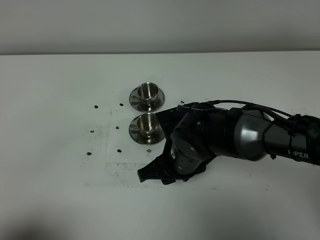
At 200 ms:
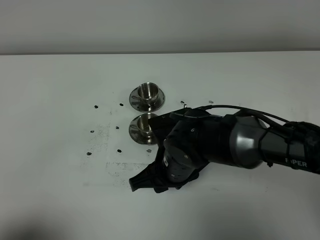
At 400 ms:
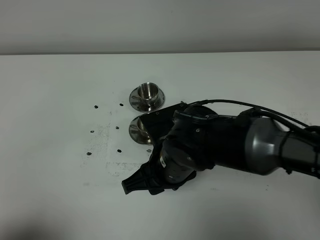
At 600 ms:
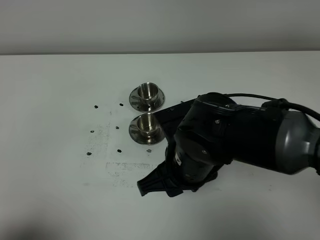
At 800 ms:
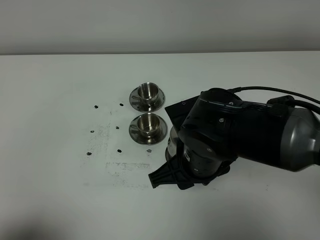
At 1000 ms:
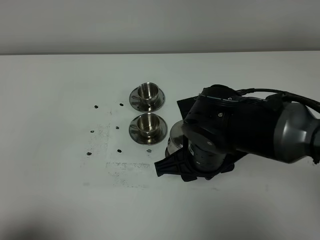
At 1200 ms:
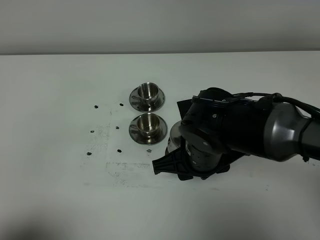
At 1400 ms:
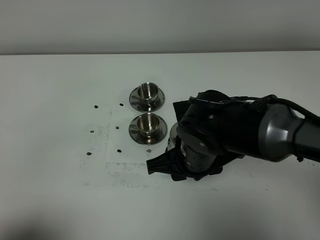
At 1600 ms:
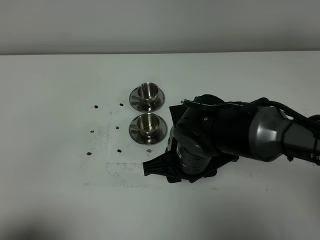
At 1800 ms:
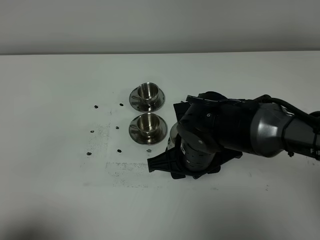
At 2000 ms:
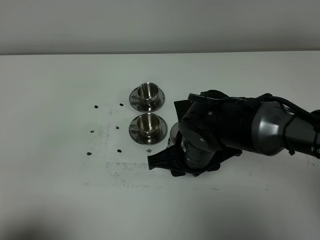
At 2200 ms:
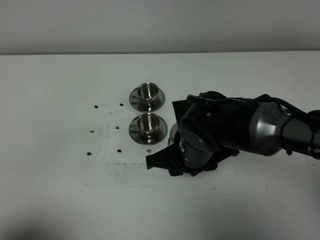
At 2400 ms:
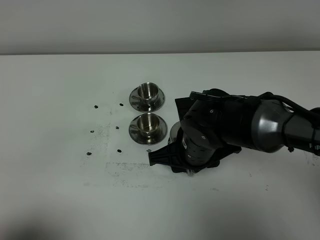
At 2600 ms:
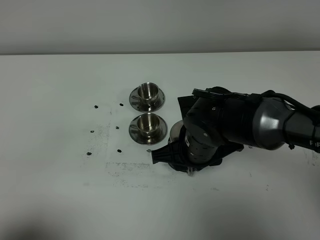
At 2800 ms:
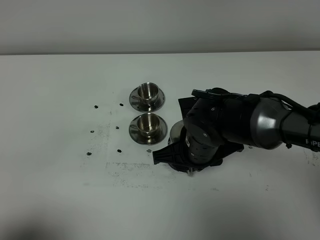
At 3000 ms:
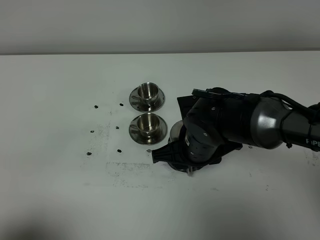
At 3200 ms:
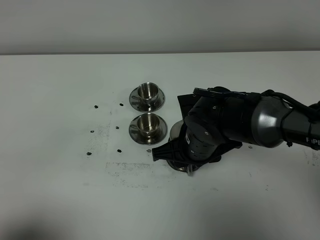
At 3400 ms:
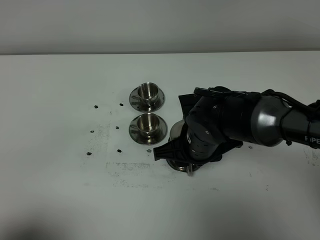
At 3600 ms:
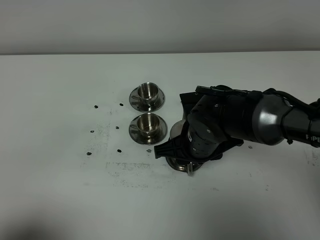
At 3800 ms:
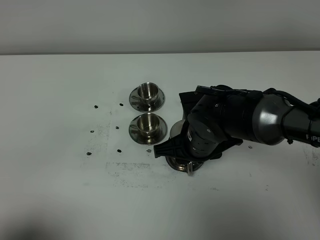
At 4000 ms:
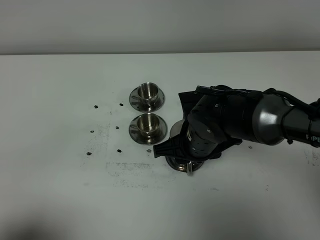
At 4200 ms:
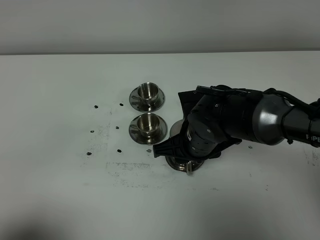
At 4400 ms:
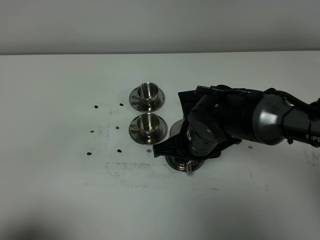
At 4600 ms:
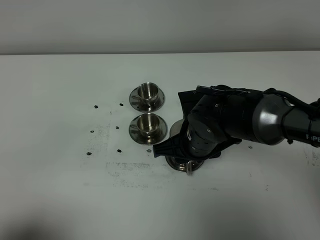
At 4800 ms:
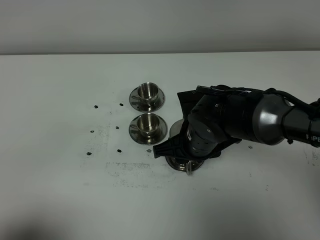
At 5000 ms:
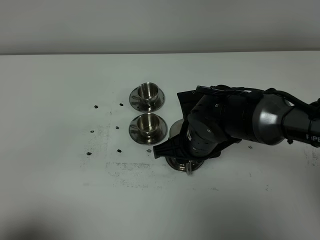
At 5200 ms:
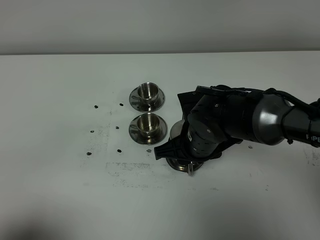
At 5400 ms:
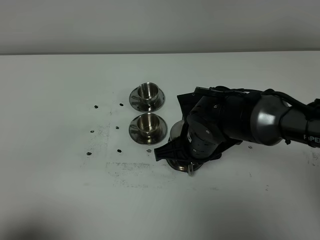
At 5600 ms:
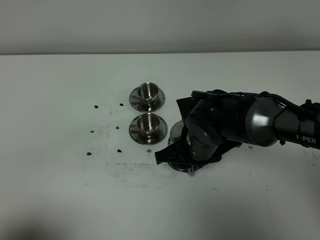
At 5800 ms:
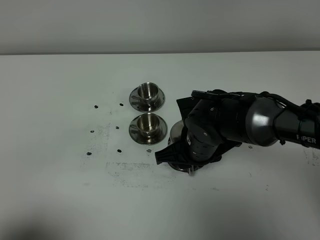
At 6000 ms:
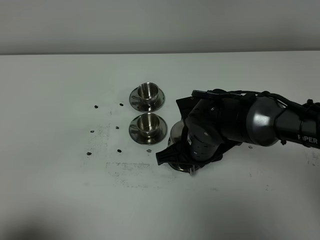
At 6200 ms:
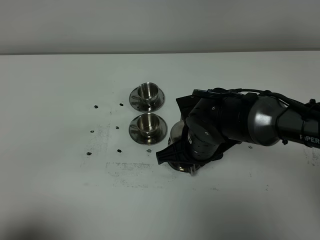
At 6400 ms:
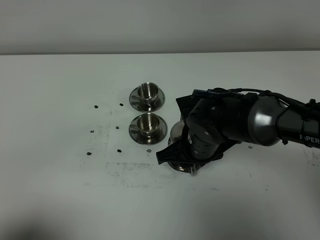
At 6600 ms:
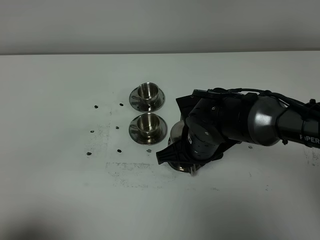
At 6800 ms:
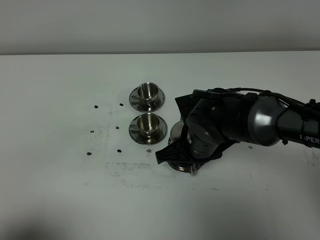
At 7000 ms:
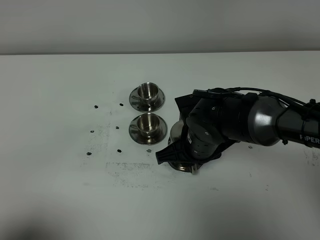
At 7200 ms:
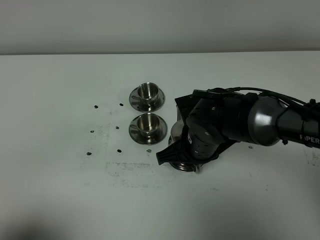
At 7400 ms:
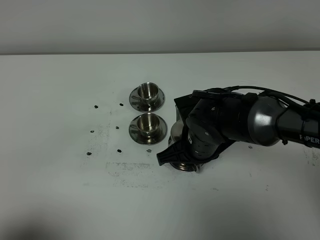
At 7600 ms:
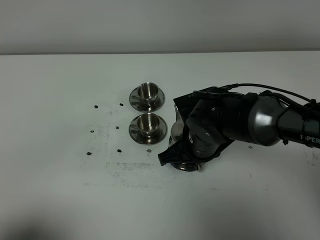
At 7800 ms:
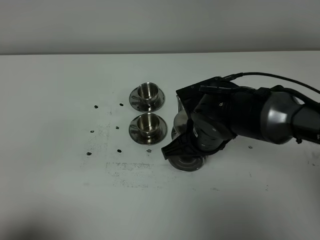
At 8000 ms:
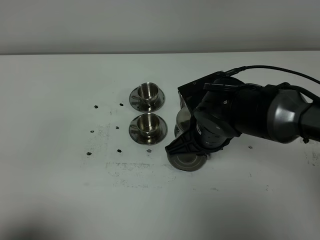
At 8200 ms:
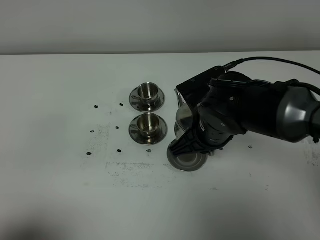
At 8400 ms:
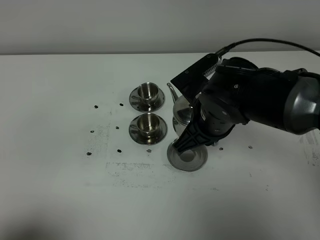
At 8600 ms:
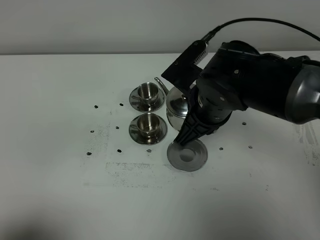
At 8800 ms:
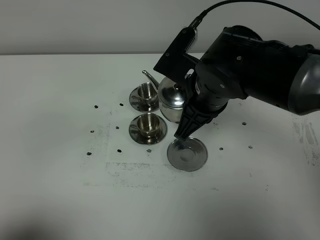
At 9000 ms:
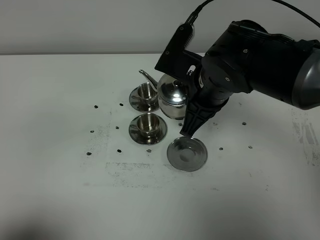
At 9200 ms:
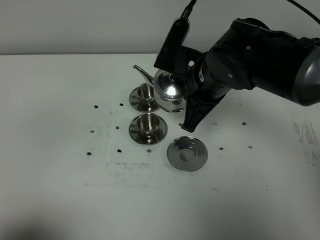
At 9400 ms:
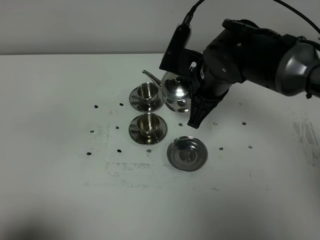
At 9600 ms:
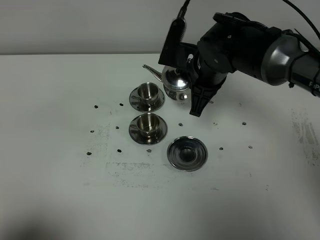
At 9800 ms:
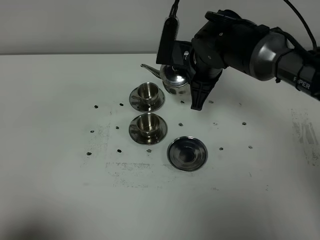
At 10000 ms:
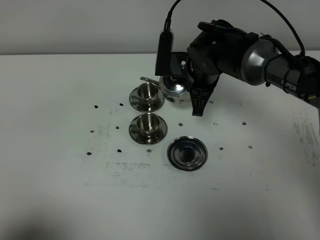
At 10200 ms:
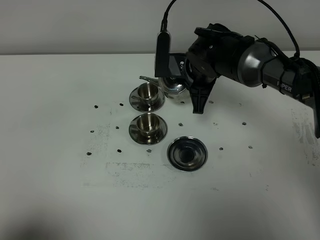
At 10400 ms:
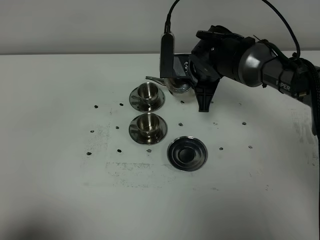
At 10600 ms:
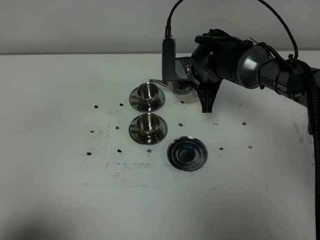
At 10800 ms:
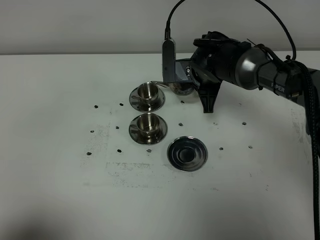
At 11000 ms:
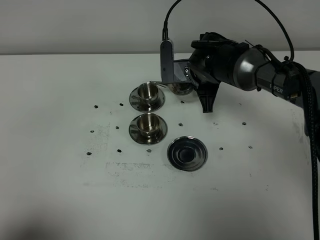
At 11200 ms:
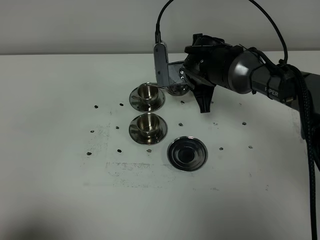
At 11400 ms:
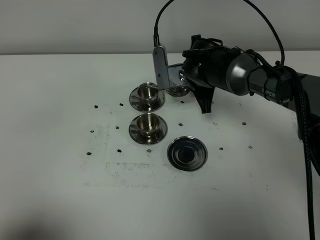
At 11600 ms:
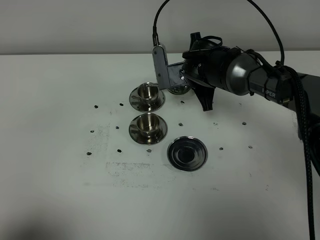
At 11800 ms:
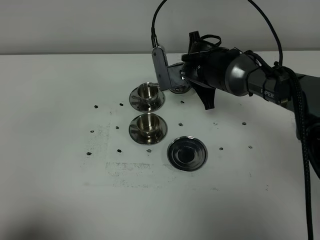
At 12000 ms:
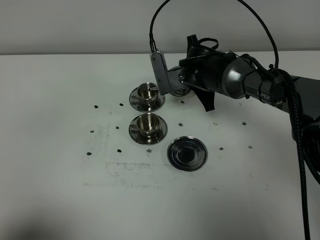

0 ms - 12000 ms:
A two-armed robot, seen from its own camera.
Task of the whole recording: grasp the stainless steel teapot and pour the tea into the two stainless steel teacups one by one, put the stainless steel teapot back in its original place.
Step, 0 ms - 8000 ms: Pick up the teapot with the right gripper.
1600 ms - 3000 ms: The grippers make only small movements.
3000 ms - 4400 ms: The two grippers keep their place.
4400 ms - 6000 ms: The grippers make only small movements.
6000 ms - 7600 ms: The right gripper closes up.
7600 ms - 9000 ms: The right gripper travels upward by roughly 10 cm.
9000 ms - 10400 ms: The right gripper shifts some 15 cm forward and downward.
10400 ms - 12000 ms: The grippers make only small movements.

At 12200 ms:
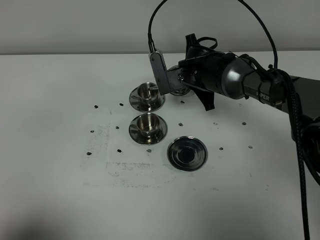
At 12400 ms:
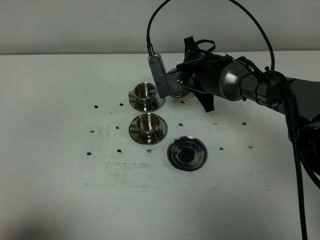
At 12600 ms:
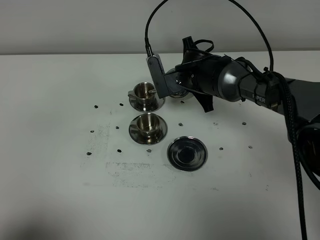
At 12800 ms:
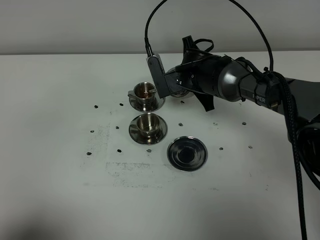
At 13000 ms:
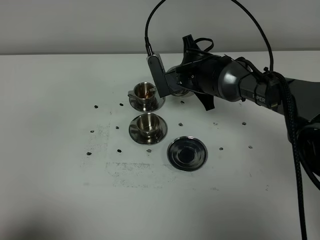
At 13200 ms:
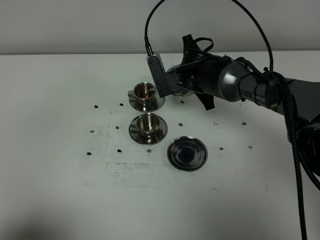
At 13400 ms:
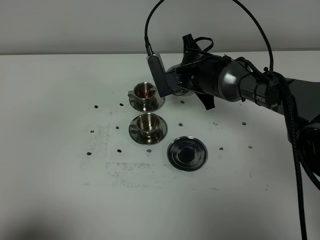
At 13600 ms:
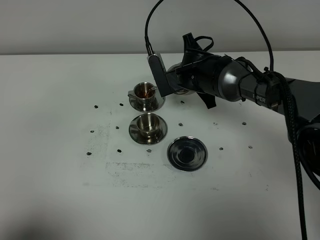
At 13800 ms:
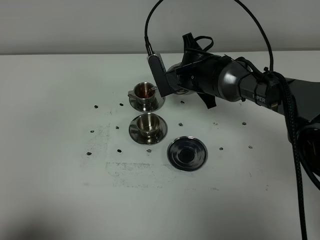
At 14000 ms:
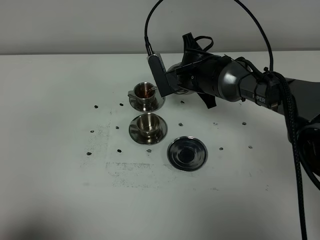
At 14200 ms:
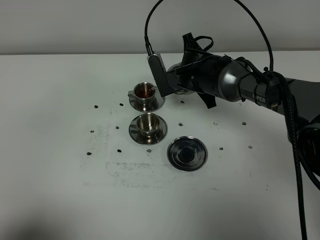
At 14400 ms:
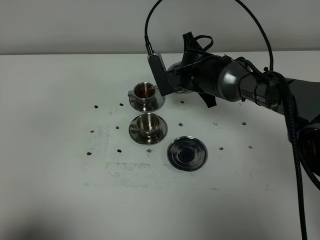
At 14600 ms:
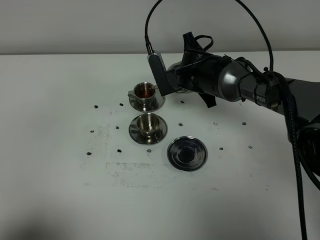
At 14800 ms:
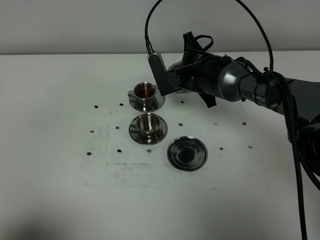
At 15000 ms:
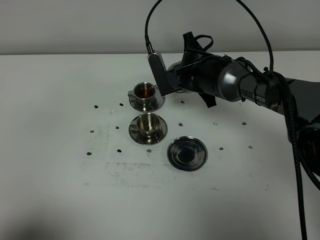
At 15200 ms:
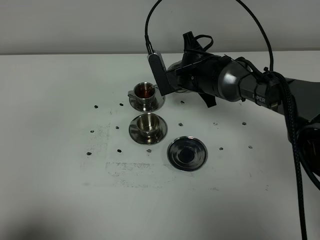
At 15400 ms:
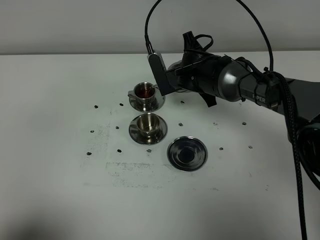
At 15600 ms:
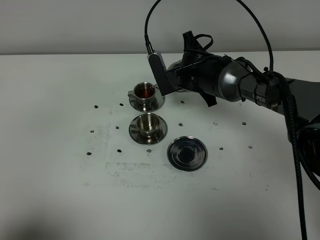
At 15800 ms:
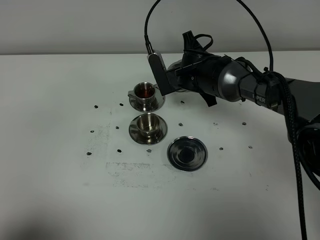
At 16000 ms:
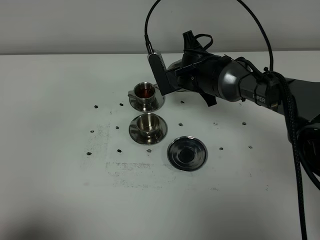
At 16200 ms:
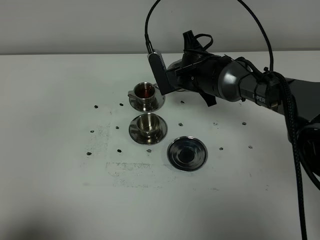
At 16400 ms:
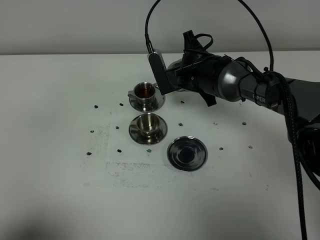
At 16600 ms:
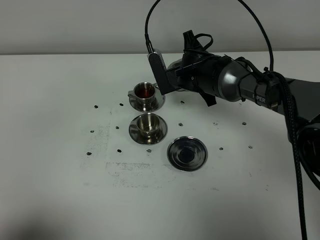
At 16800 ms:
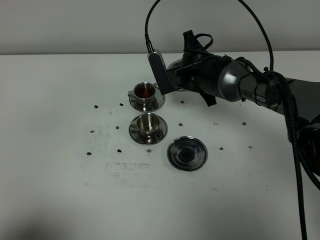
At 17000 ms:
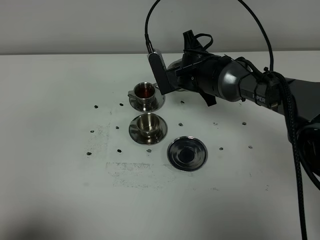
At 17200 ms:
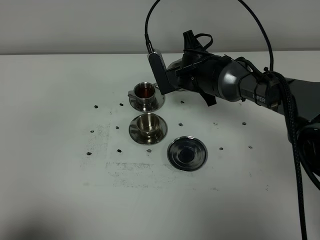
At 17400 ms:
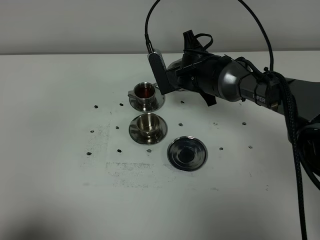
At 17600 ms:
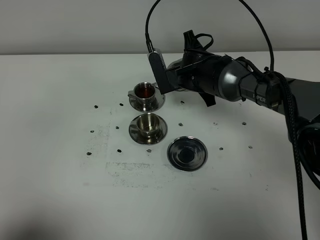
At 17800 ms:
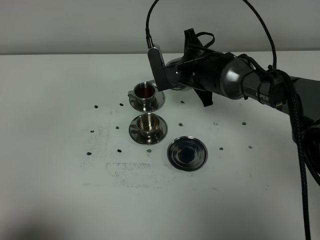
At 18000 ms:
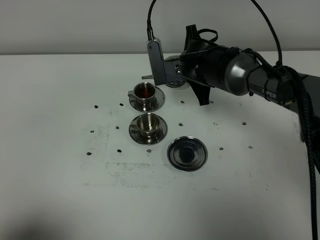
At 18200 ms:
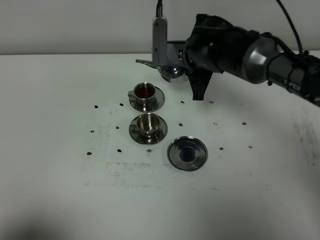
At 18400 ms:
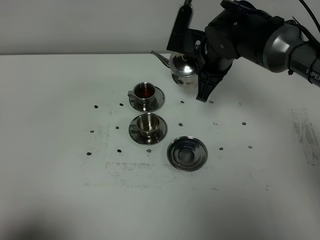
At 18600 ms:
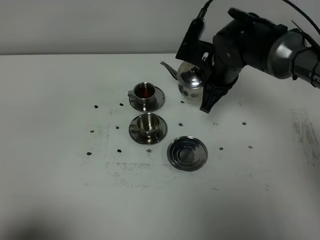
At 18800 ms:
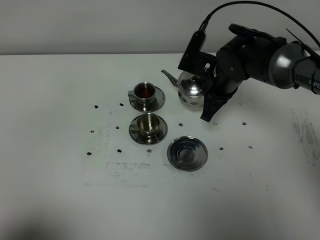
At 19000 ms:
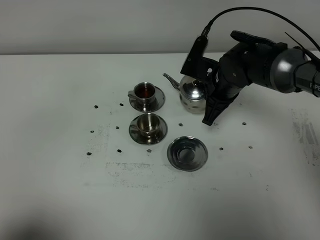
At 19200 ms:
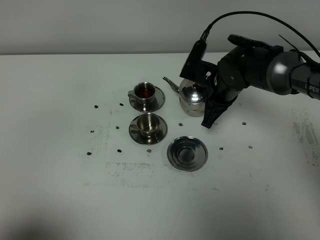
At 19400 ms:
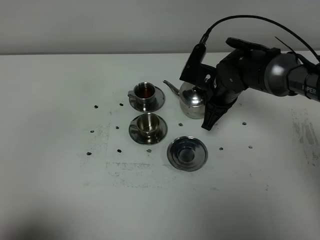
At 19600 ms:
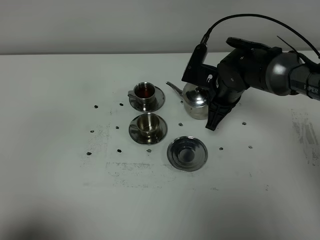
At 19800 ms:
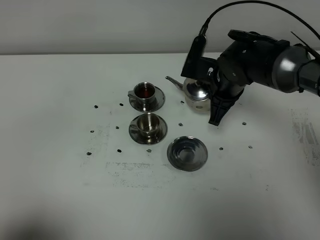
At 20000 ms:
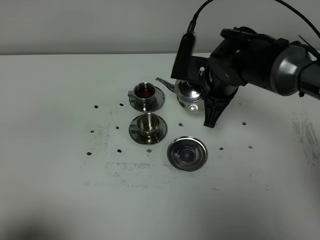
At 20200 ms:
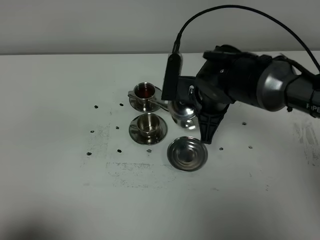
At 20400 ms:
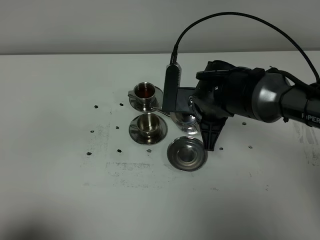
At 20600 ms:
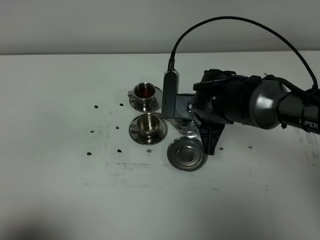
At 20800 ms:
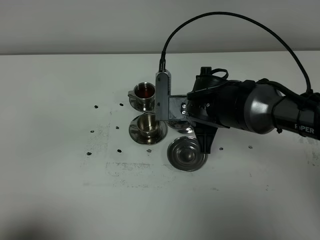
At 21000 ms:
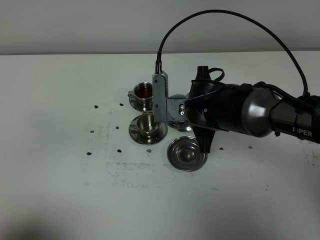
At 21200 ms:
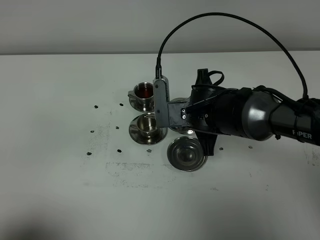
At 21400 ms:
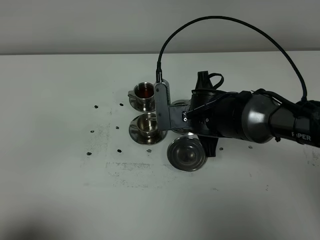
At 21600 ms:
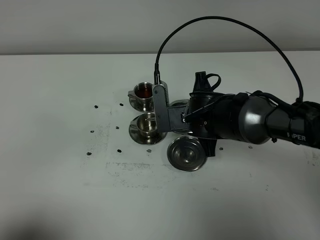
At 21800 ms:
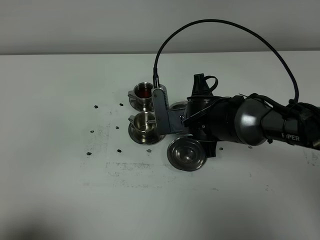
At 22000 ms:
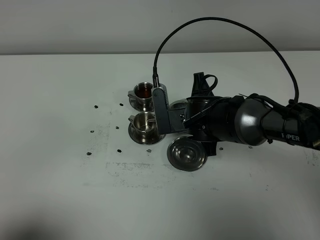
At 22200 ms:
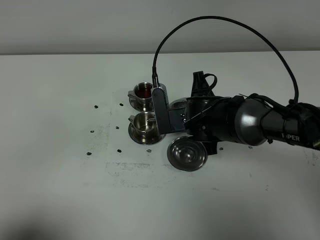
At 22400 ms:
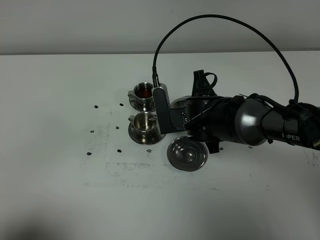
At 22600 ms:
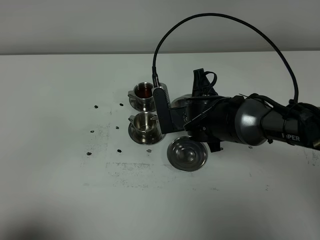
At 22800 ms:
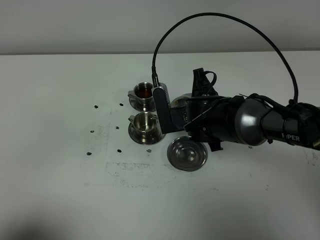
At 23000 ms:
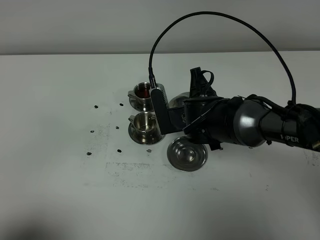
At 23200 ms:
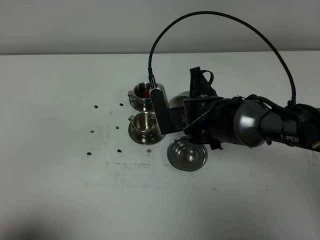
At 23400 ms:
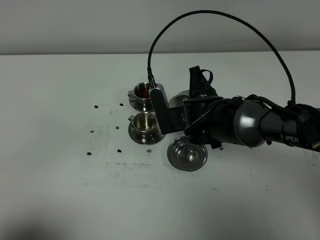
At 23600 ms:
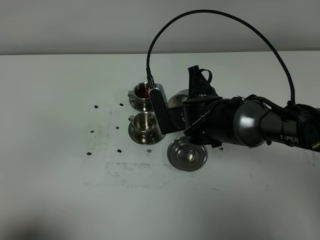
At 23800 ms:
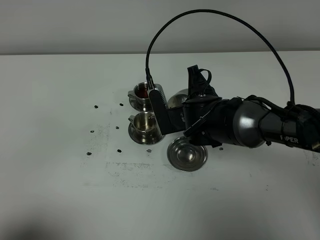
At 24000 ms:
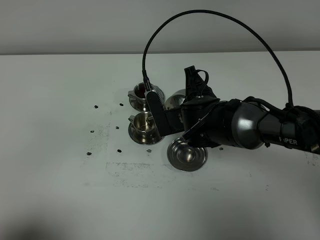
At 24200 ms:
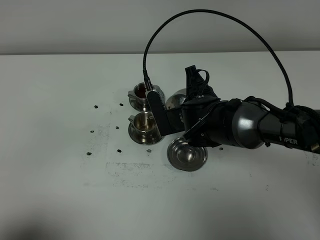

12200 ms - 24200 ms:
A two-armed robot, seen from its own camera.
Task of the whole recording: grasp the stainless steel teapot and pour the tea into the two stainless steel teacups one by one, put the stainless steel teapot back in its original place.
12200 ms - 13800 ms: The grippers make only small movements.
13800 ms - 16600 ms: Both grippers stay about where they are.
16600 ms - 18200 ms: The right gripper goes approximately 5 cm upward.
18200 ms - 19800 ms: The right gripper shifts by some 5 cm.
19800 ms - 21200 ms: The right gripper moves backward and to the left, about 10 cm.
21200 ms - 24200 ms: The grippers move only a little.
